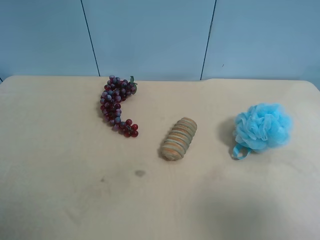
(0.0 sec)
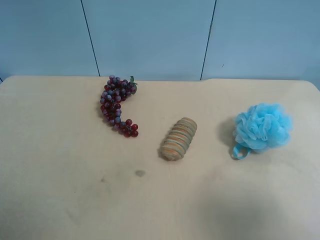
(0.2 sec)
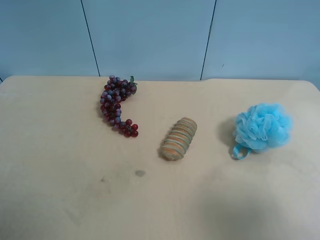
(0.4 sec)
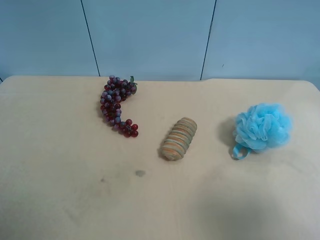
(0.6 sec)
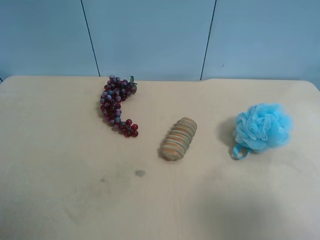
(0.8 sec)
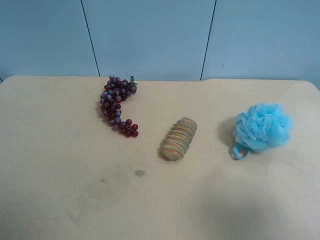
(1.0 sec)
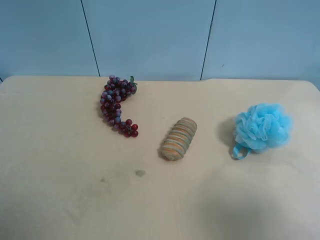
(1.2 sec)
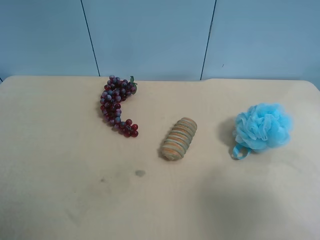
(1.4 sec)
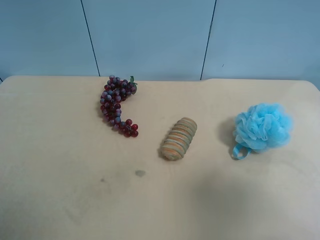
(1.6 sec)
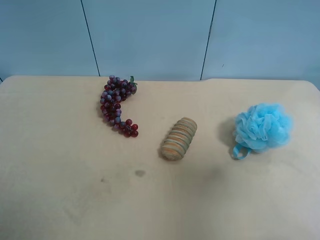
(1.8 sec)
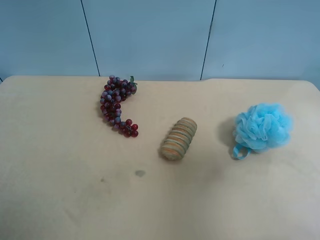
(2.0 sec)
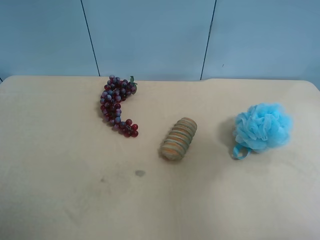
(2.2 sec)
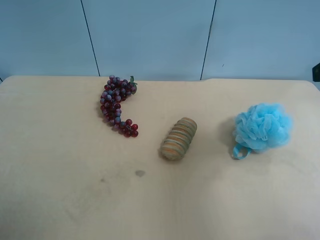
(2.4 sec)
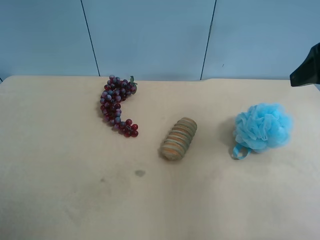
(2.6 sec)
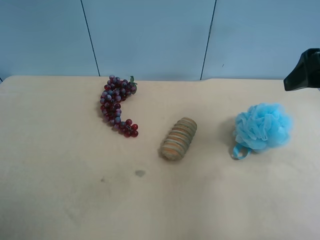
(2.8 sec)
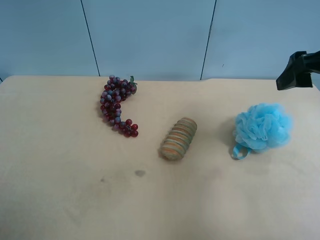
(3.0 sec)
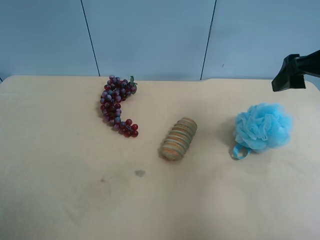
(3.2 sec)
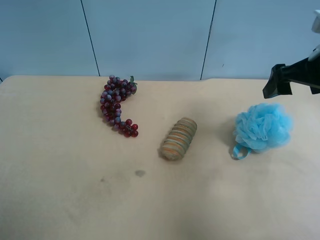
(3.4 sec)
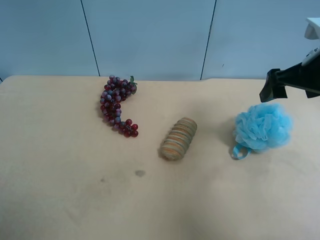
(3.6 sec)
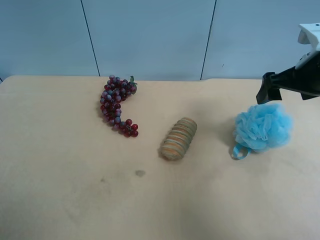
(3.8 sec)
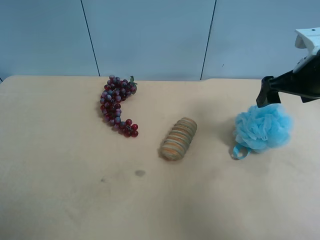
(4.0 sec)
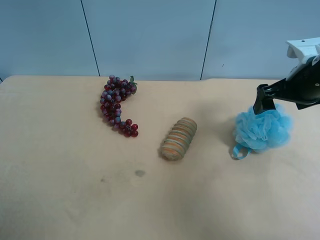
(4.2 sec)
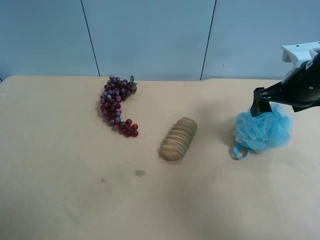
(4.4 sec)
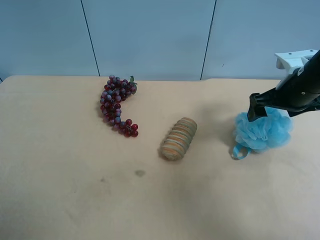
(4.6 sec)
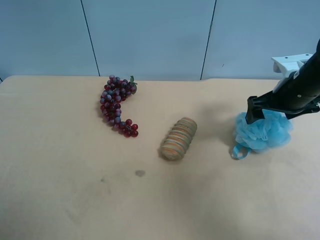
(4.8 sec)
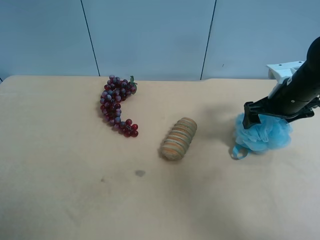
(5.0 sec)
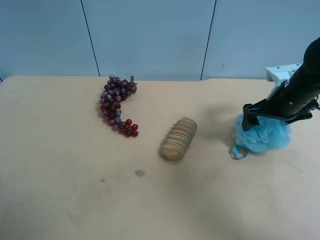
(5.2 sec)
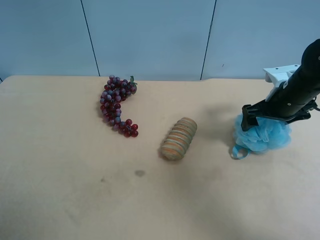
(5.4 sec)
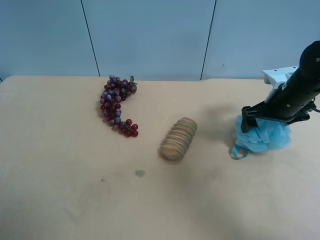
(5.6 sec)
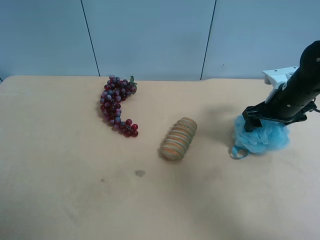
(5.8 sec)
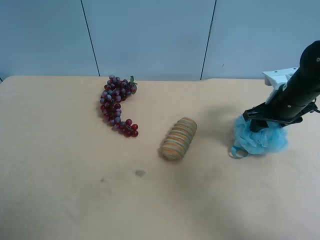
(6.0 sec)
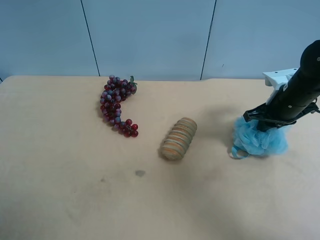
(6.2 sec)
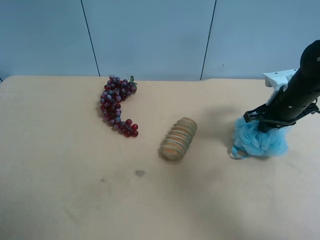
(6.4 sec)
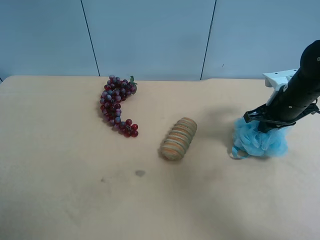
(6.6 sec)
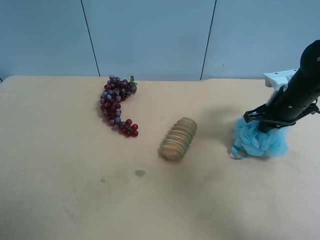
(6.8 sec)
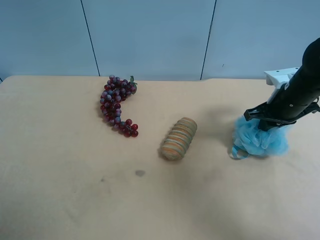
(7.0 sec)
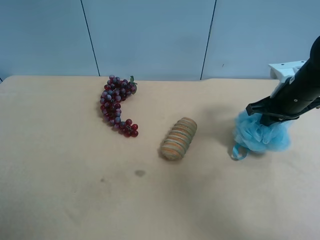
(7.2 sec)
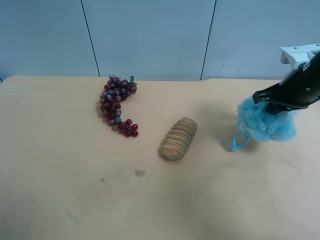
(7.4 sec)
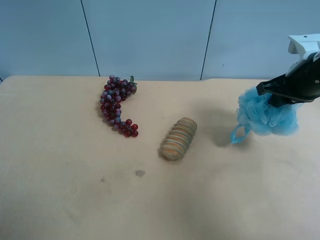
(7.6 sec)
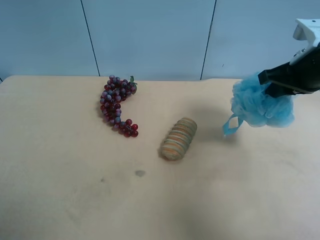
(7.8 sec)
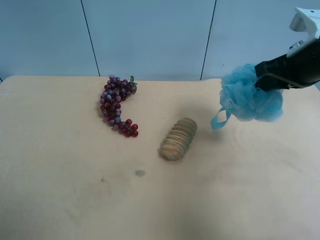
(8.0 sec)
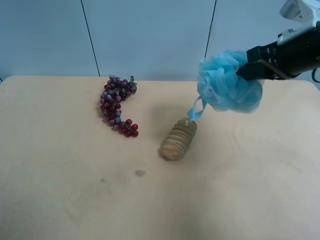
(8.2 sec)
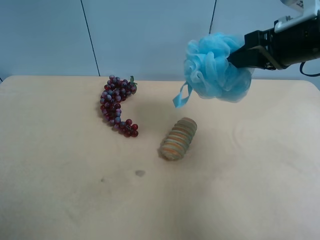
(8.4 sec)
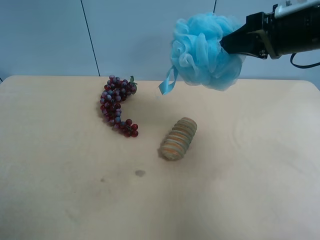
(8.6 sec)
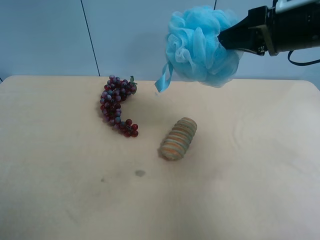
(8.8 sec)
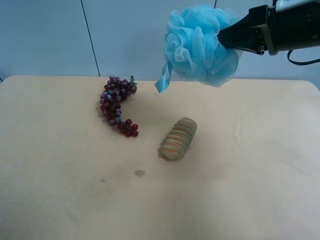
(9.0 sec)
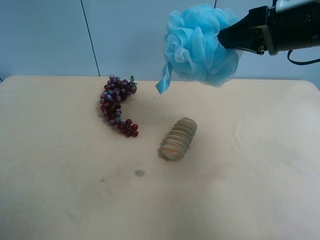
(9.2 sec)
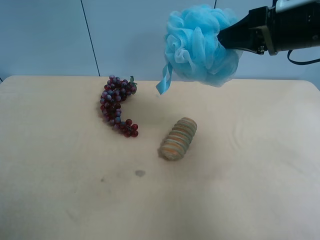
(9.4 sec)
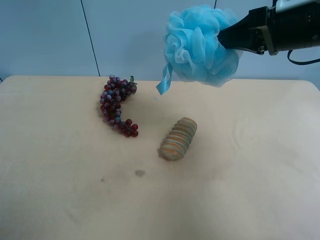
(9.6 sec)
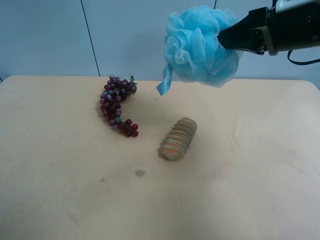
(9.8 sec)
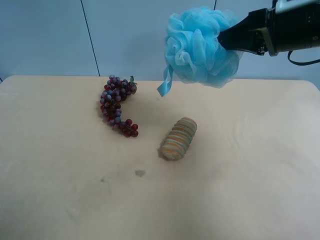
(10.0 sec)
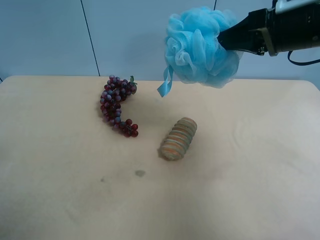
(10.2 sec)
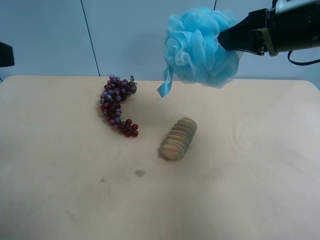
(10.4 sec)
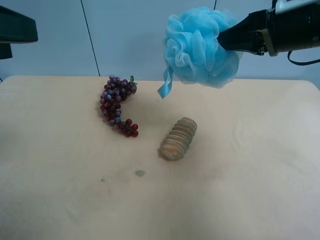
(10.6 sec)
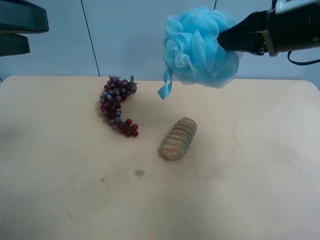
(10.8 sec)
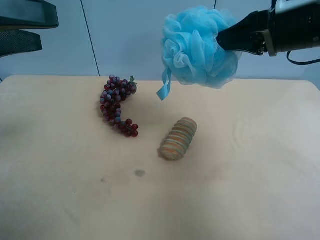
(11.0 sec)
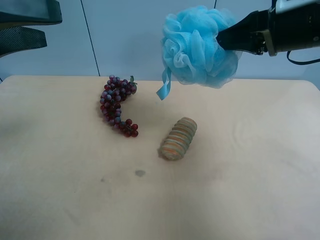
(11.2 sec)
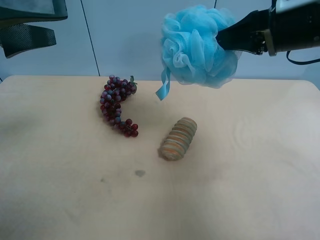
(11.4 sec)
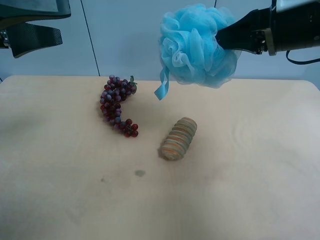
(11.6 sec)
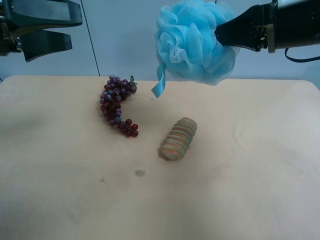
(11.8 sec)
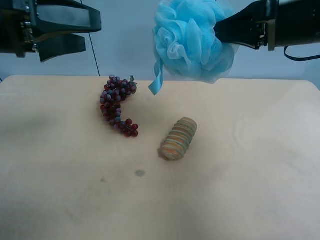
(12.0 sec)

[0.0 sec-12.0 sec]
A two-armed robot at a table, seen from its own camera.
Task of the whole recording: use the right gripper to pick up the item and transfer it from the right gripper to the left gripper.
0.0 sec to 1.6 sec: The right gripper shifts by some 5 cm.
1.6 sec to 3.0 sec: The right gripper is displaced forward by roughly 20 cm.
3.0 sec to 4.4 sec: The right gripper shifts roughly 10 cm downward and forward.
4.4 sec to 6.0 sec: The right gripper goes approximately 5 cm downward, and closes.
6.0 sec to 7.6 sec: The right gripper travels upward by roughly 10 cm, and closes.
7.6 sec to 9.0 sec: The right gripper is displaced upward and to the left by roughly 10 cm.
9.0 sec to 10.4 sec: The left gripper travels forward and upward by approximately 15 cm.
10.4 sec to 12.0 sec: The left gripper travels forward and to the right by about 10 cm.

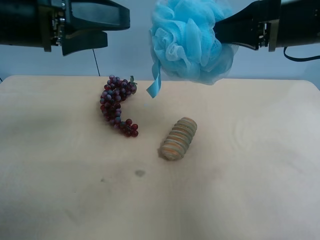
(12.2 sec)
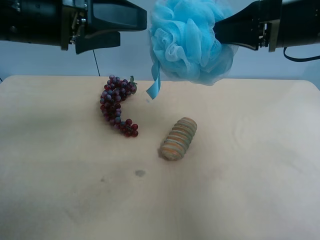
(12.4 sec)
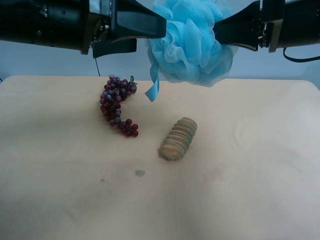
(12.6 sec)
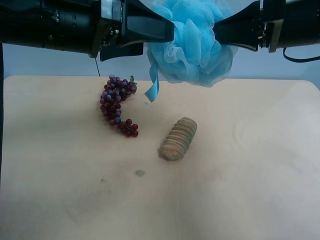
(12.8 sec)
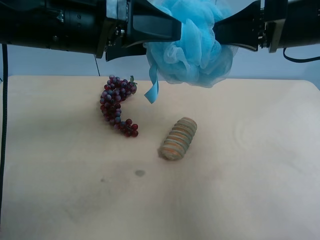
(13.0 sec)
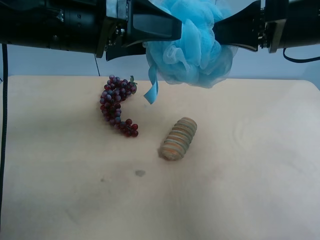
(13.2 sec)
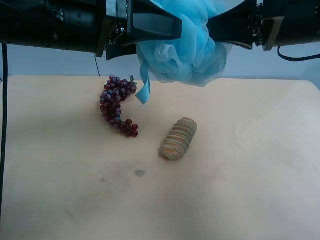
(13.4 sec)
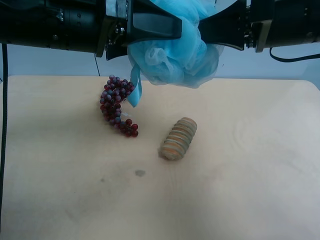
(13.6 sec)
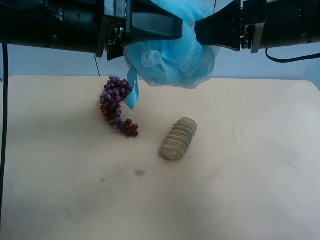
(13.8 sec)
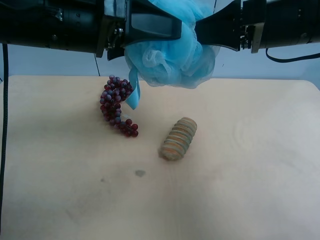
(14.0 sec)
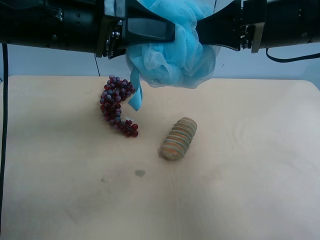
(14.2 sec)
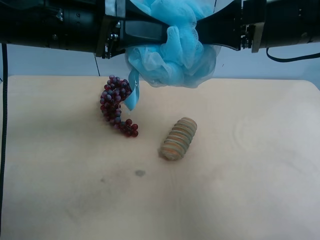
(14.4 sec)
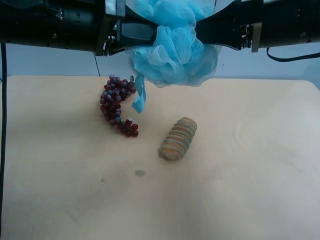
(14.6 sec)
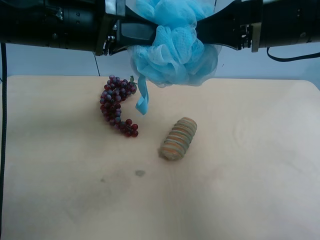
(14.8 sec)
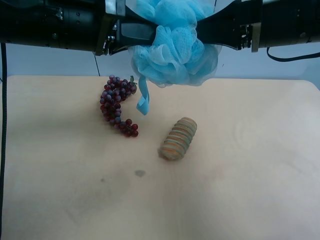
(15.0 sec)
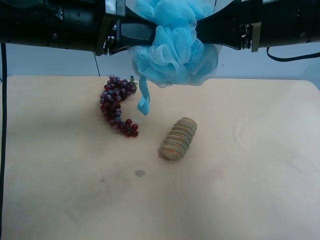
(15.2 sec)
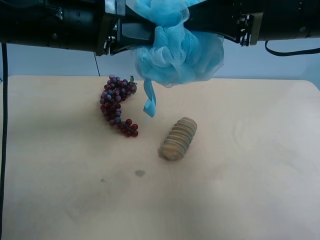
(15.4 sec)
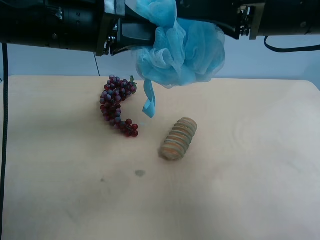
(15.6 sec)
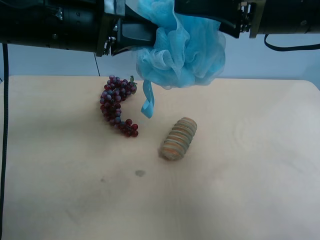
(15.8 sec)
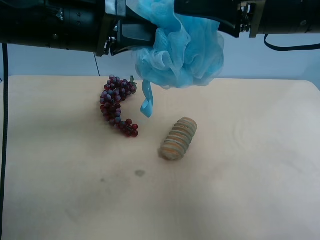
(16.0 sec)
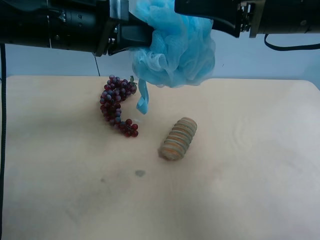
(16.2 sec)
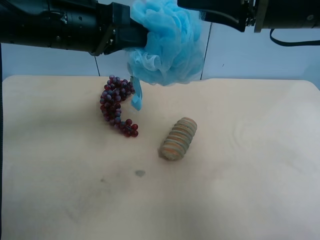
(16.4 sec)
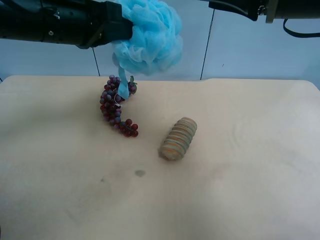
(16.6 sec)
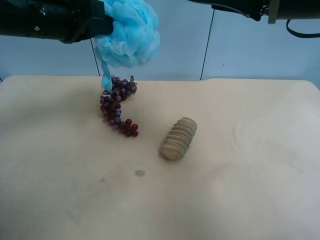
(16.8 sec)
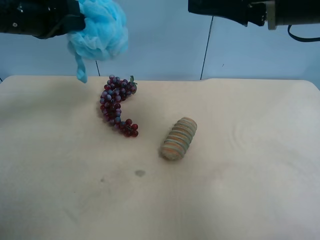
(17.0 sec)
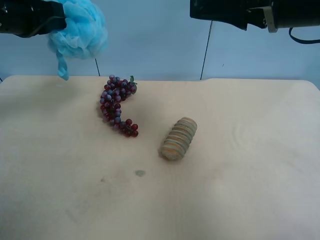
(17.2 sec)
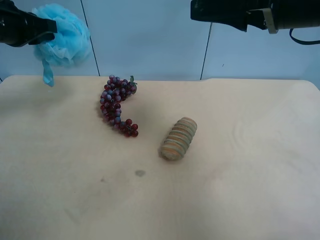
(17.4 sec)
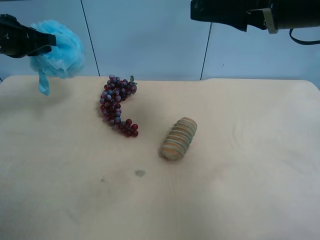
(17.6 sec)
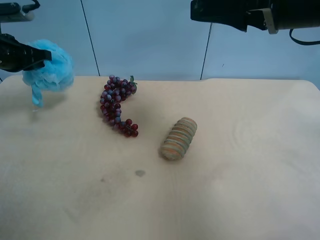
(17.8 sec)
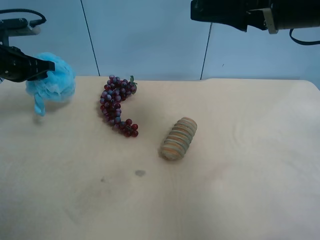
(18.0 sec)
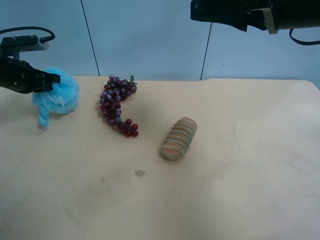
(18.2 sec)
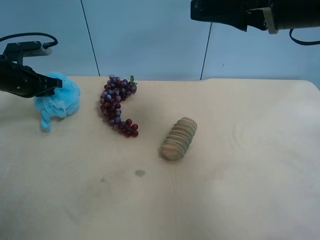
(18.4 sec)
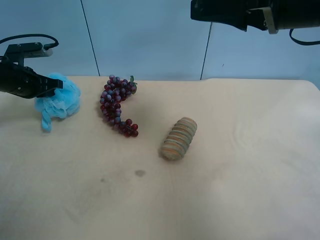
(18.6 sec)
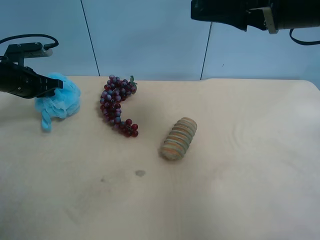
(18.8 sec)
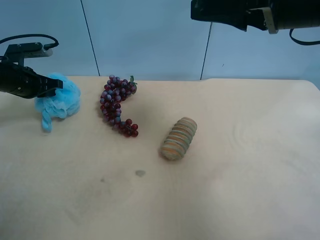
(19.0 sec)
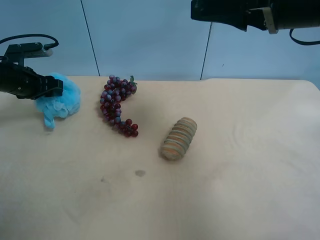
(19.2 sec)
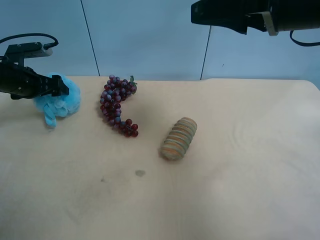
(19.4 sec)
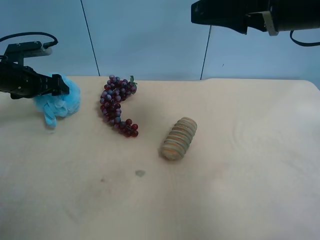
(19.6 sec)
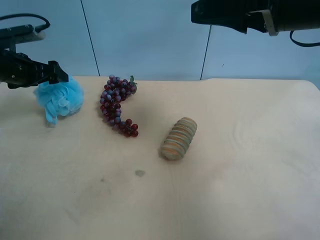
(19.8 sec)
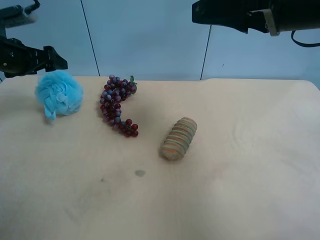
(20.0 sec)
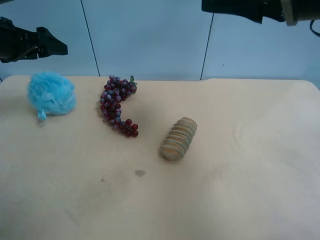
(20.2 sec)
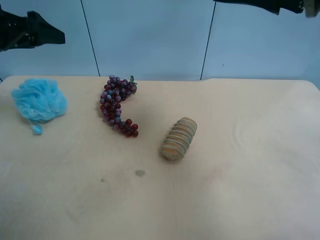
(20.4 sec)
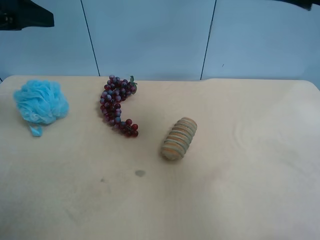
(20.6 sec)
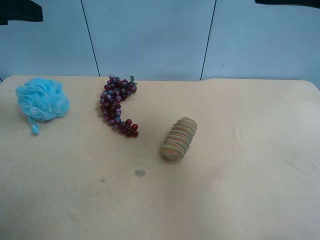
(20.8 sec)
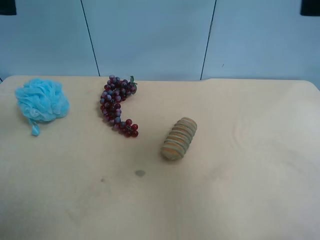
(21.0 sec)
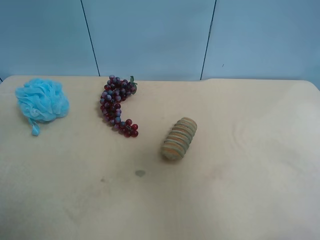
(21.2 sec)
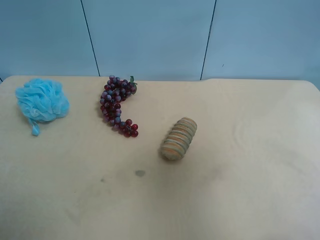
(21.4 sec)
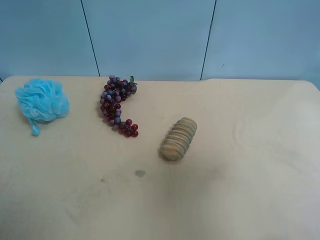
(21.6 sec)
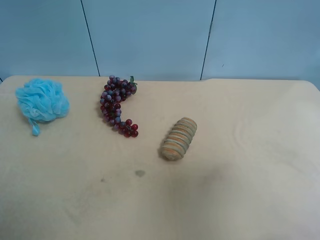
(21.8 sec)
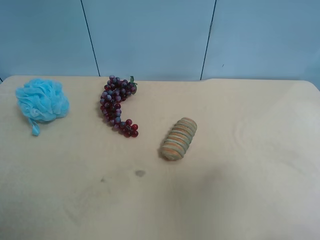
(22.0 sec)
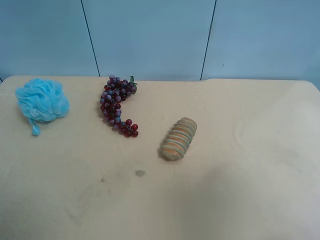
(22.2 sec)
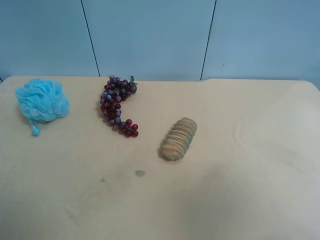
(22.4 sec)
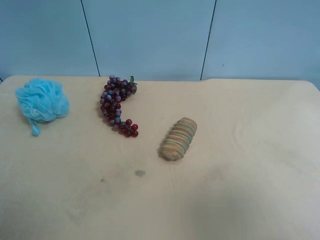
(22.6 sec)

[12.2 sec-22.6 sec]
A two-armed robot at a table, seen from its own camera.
Task of the whole recording: use the right gripper to pick up the item and transfer it from the right gripper to the left gripper.
12.2 sec to 13.6 sec: The left gripper shifts approximately 5 cm to the right.
13.6 sec to 15.2 sec: The left gripper closes.
15.2 sec to 16.6 sec: The right gripper opens.
16.6 sec to 18.2 sec: The left gripper is displaced to the left, downward and forward by roughly 25 cm.
18.2 sec to 19.6 sec: The left gripper opens.
19.6 sec to 21.2 sec: The left gripper goes some 35 cm upward and backward, while the right gripper heads backward and to the right, covering about 15 cm.
21.2 sec to 22.6 sec: The left gripper goes some 20 cm backward and downward. The right gripper goes about 15 cm backward, downward and to the right.
